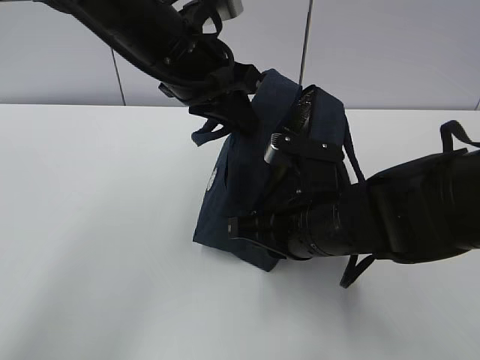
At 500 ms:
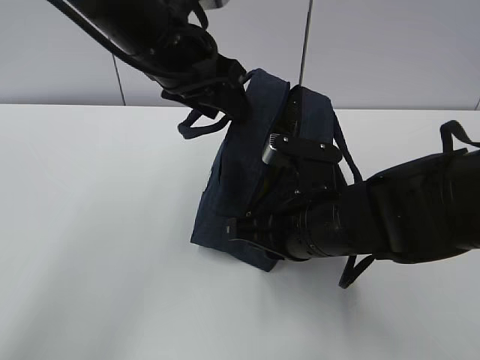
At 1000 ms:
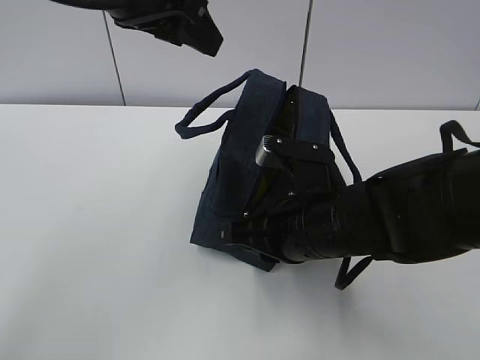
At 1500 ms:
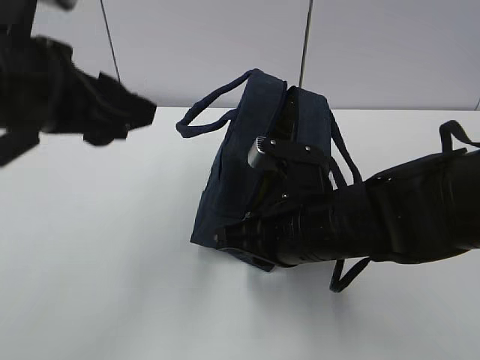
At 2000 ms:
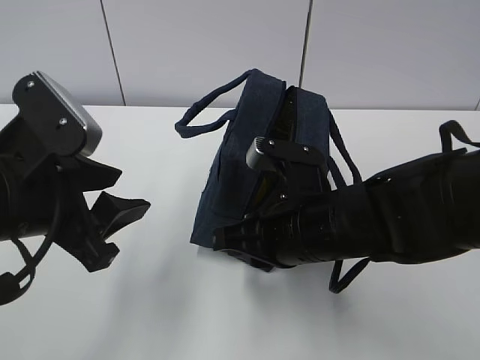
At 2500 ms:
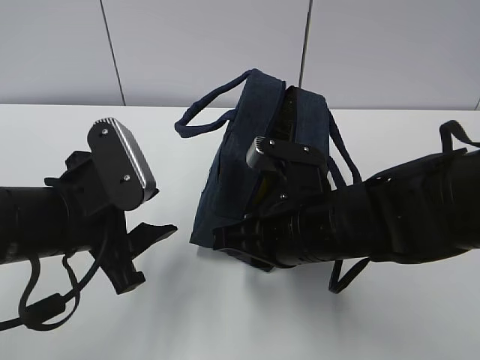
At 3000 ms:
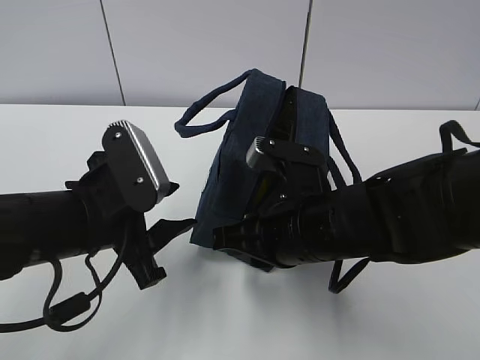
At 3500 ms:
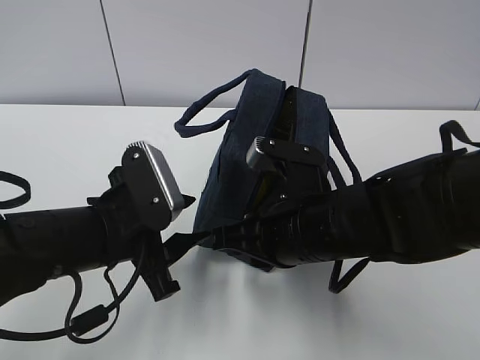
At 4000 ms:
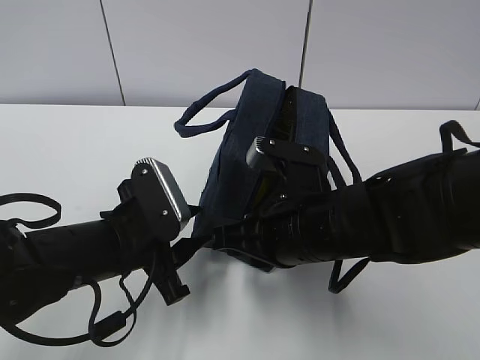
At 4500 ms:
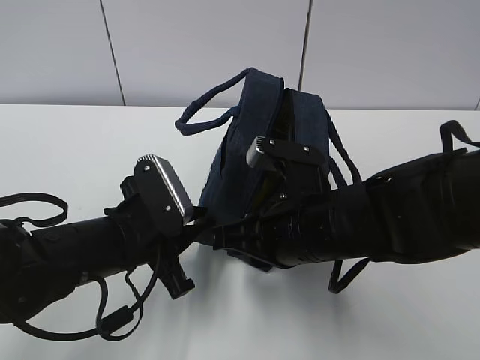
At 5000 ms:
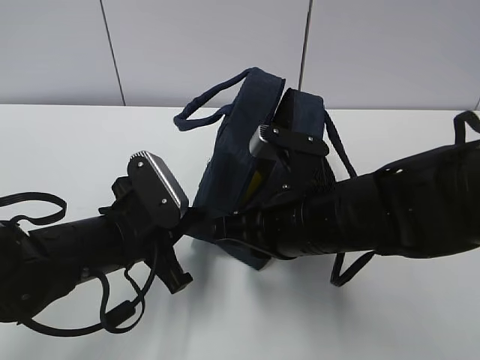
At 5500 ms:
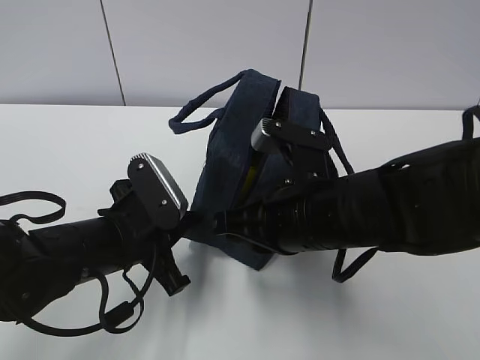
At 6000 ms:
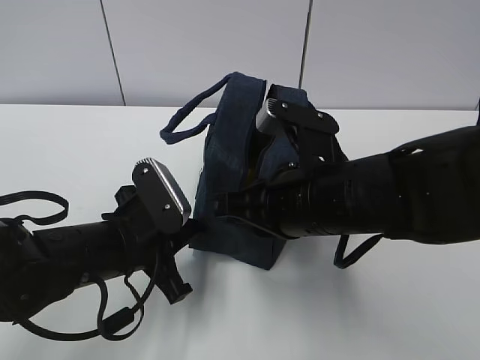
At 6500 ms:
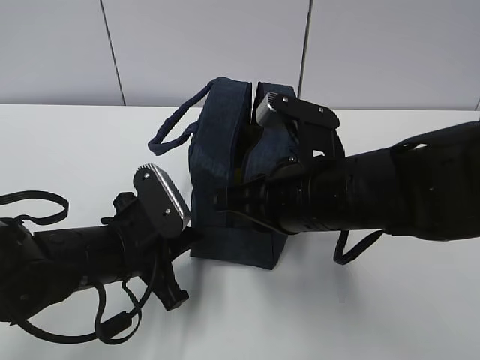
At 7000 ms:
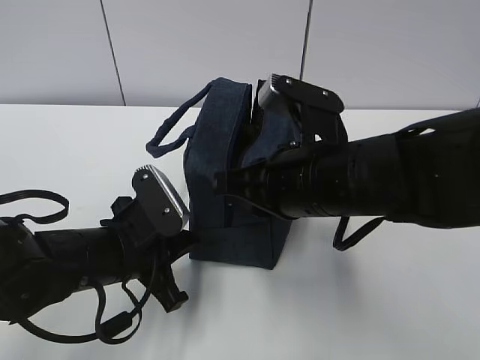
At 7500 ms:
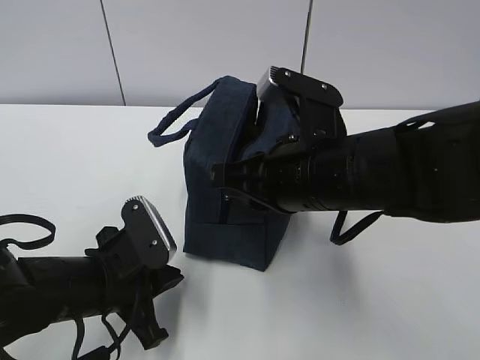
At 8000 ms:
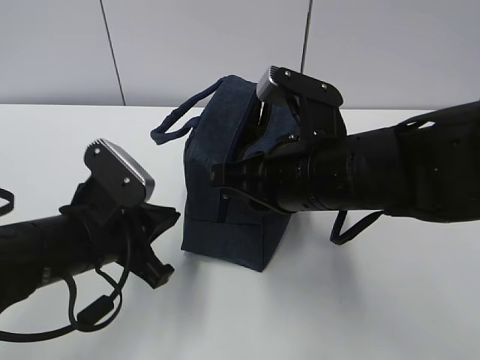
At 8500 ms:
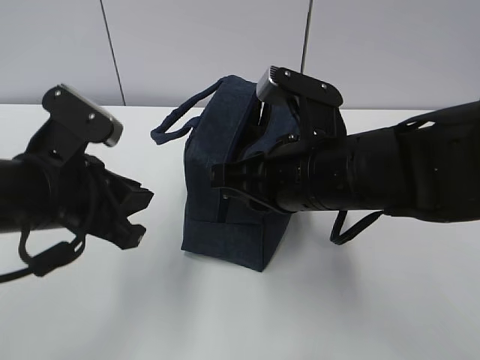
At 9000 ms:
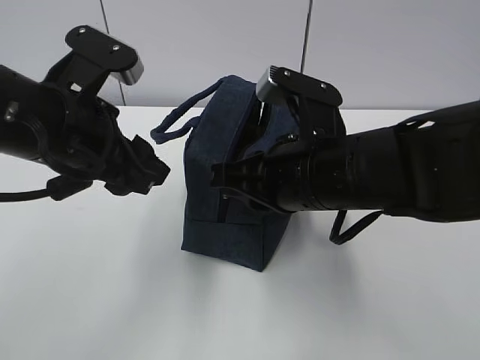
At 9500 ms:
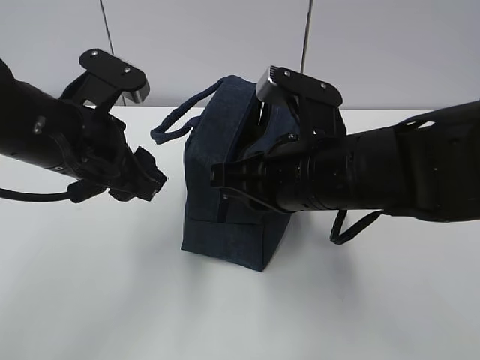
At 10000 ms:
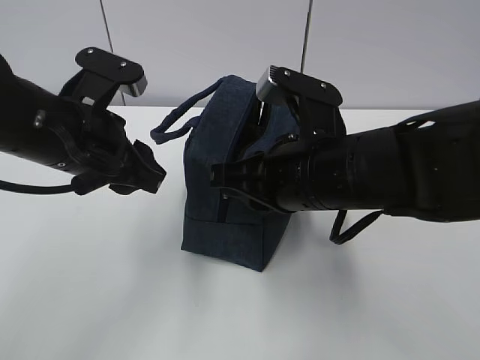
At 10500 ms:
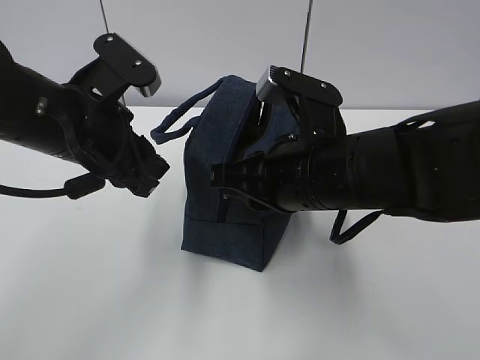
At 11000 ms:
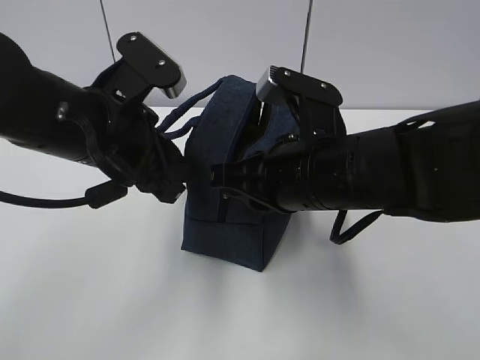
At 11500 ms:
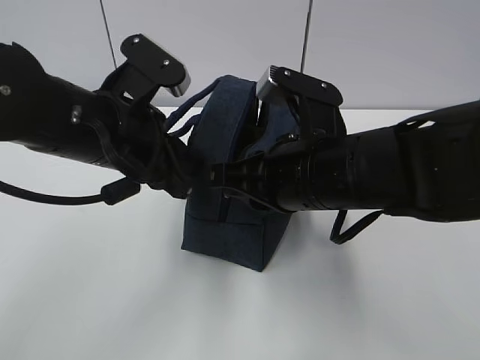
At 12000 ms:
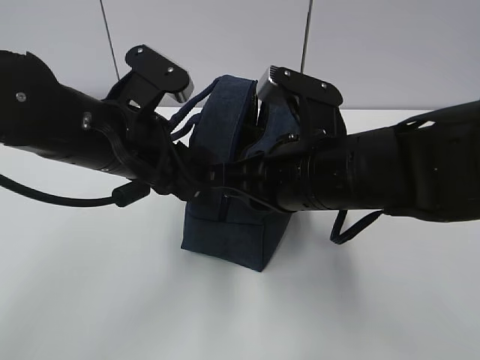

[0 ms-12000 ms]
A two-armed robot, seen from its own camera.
Step, 0 ms to 8000 ms: Grab the lunch bag with your left hand.
0 ms to 2000 ms: The left gripper heads backward and to the left, covering about 20 cm, and opens.
2000 ms to 4000 ms: The left gripper is displaced downward by roughly 10 cm.
4000 ms to 6000 ms: The left gripper closes.
8000 ms to 10000 ms: The left gripper travels upward by roughly 10 cm, and opens.
10000 ms to 12000 ms: There are only small adjustments of the grippers.

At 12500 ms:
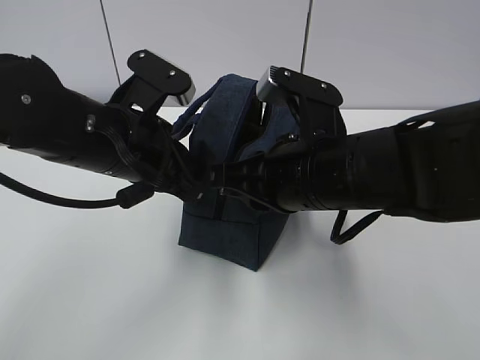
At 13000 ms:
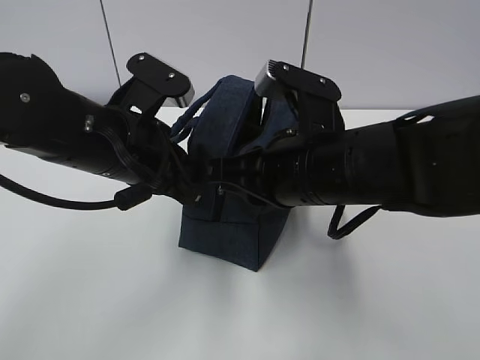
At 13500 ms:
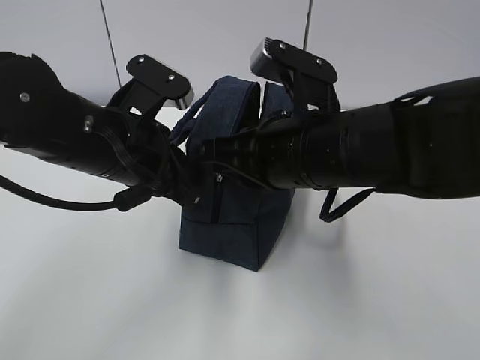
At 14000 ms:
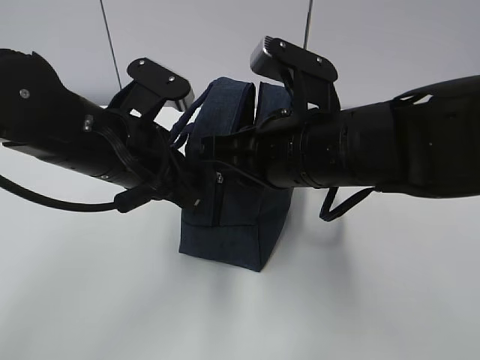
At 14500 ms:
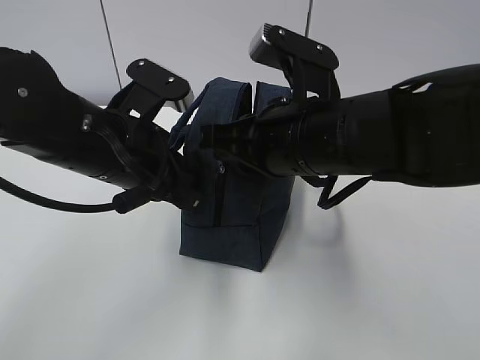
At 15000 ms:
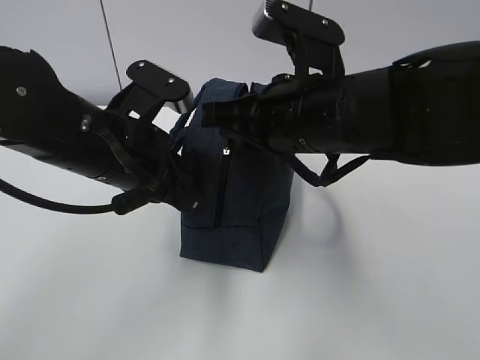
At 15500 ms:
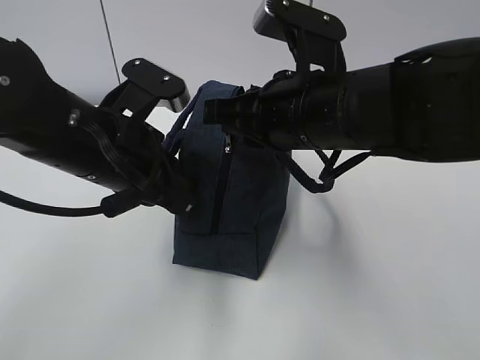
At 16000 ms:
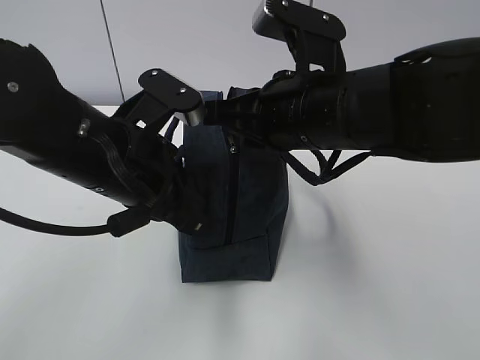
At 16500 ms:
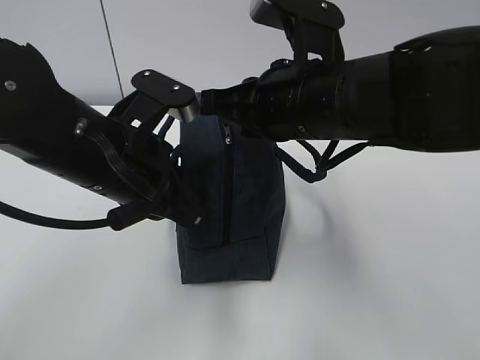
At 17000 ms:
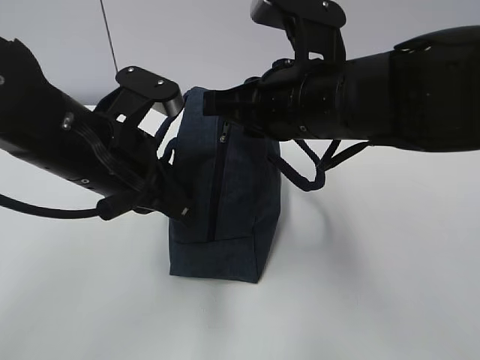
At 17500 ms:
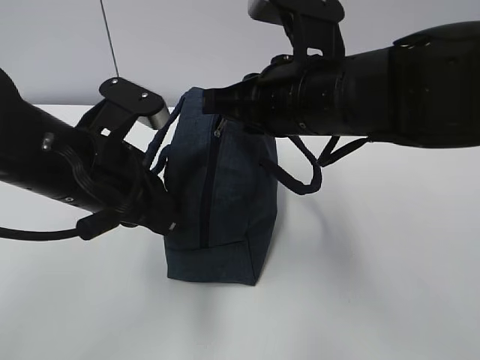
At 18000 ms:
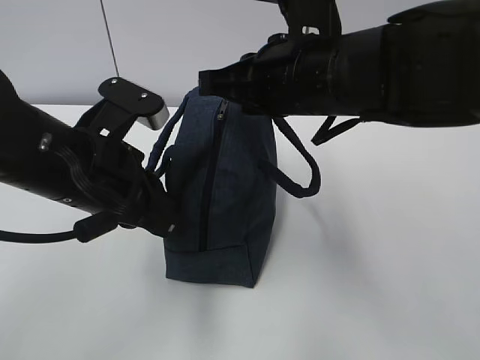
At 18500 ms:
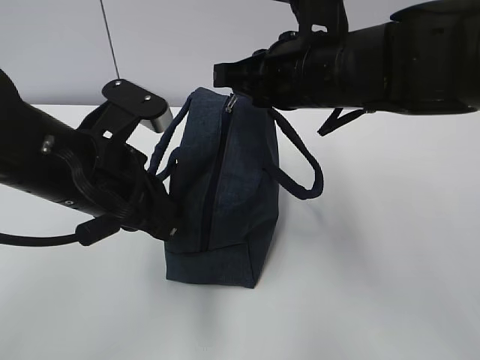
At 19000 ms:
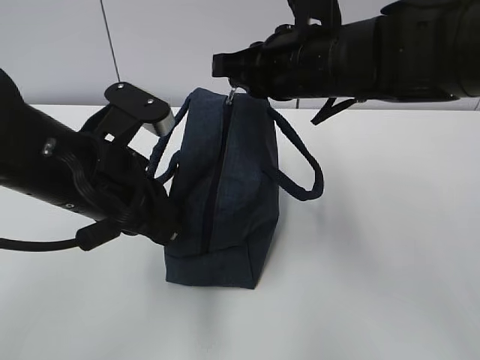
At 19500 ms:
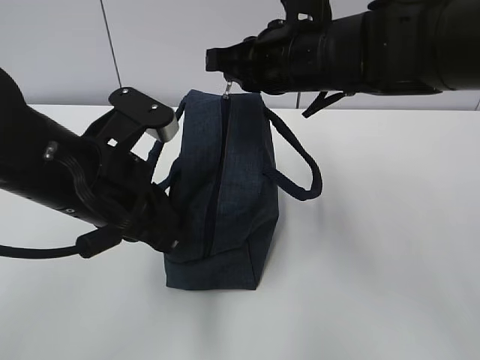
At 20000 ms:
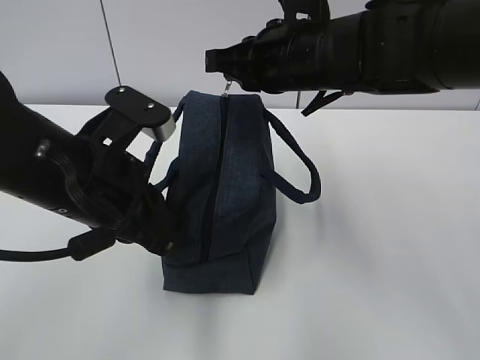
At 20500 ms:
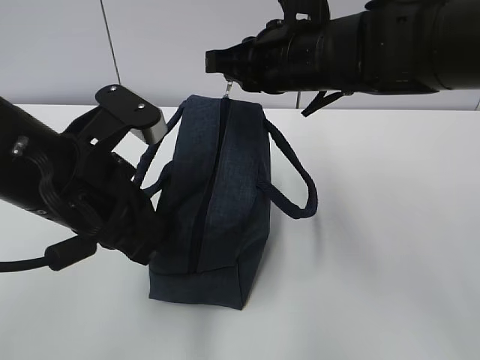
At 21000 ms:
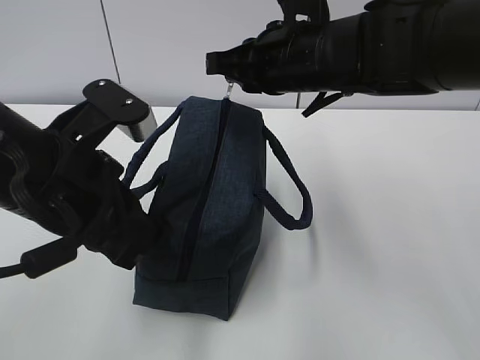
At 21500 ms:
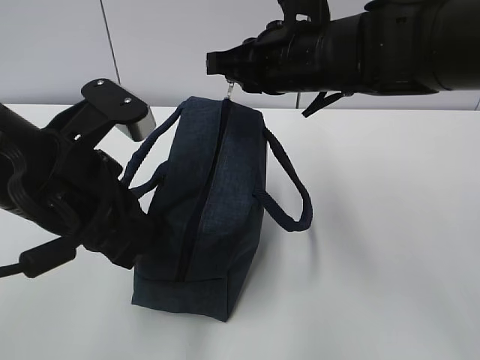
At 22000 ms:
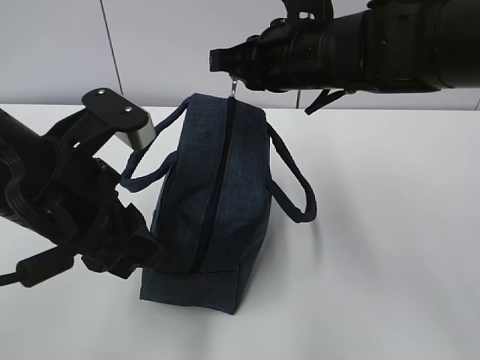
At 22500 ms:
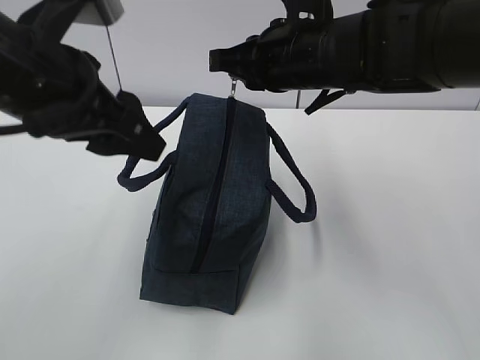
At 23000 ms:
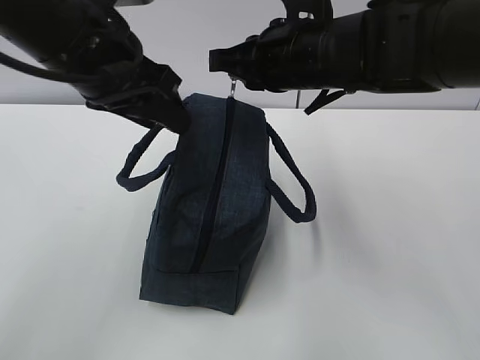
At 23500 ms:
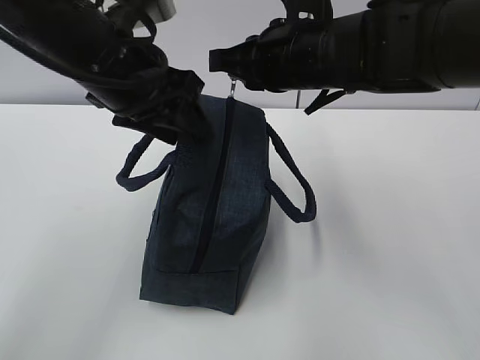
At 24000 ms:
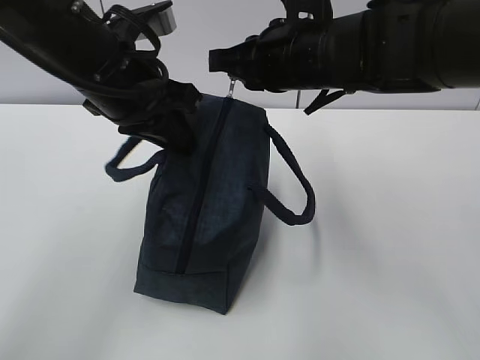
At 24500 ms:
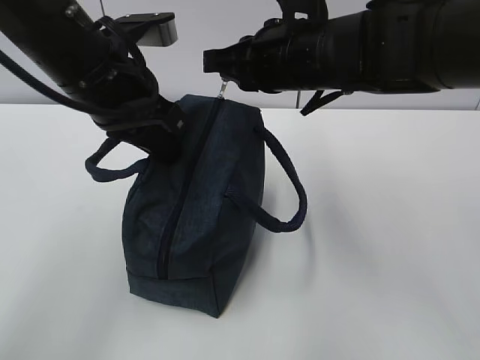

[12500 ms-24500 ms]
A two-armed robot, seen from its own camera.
Step, 14500 ms to 16500 ms: Grab the lunch bag with your left hand.
12500 ms to 14500 ms: The grippers move only a little.
18500 ms to 20500 ms: The grippers stay close to where they were, moving slightly.
20500 ms to 22500 ms: The left gripper goes some 5 cm upward, and opens up.
22500 ms to 24500 ms: The left gripper heads forward, covering some 5 cm, and closes up.

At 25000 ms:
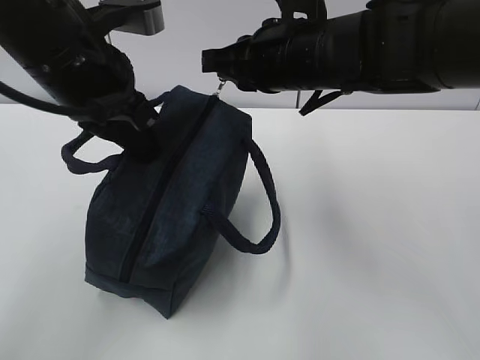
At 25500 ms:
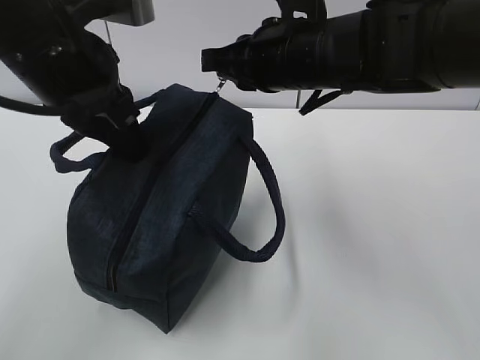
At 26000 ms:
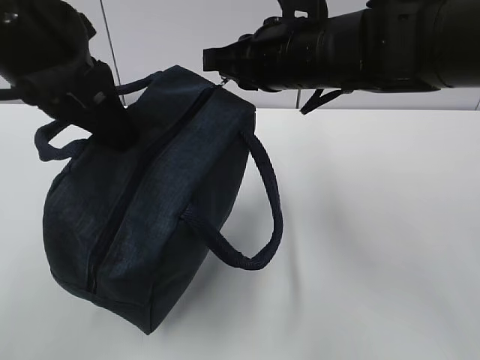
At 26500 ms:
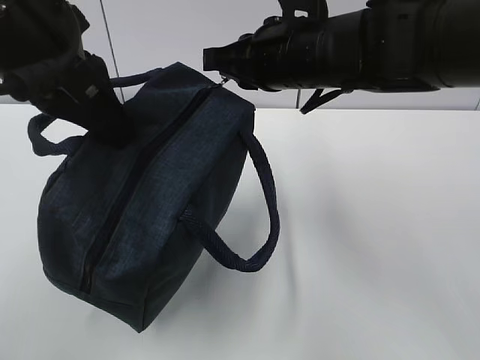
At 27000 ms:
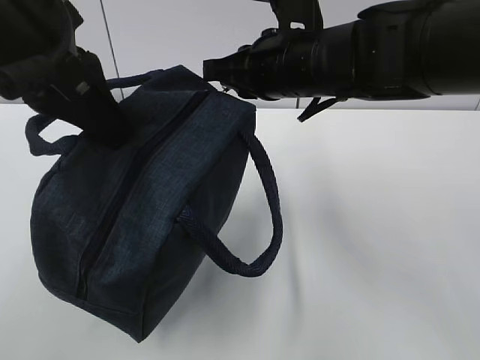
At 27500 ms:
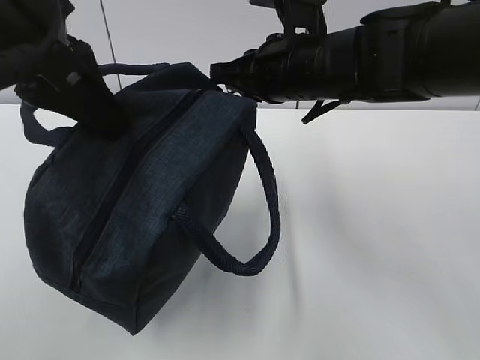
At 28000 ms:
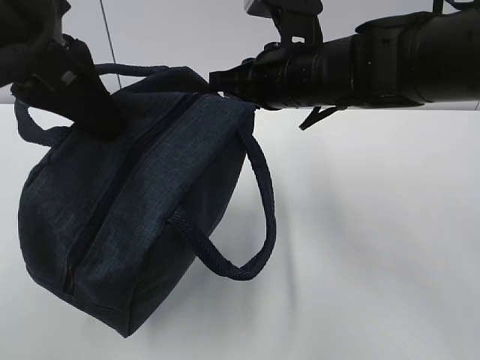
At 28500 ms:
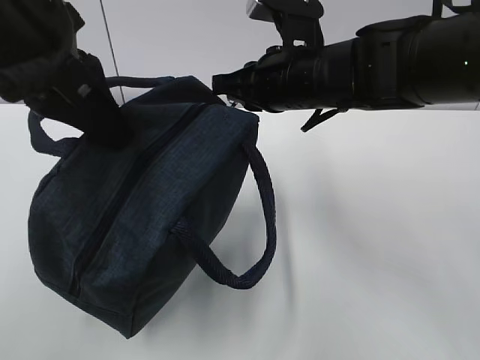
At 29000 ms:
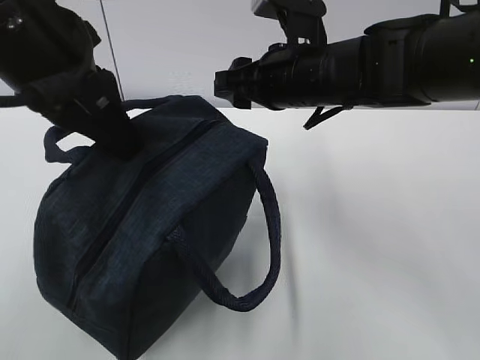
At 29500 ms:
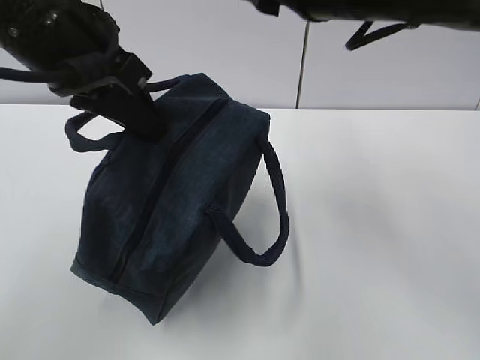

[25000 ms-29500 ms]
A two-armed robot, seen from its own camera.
25000 ms to 27000 ms: The left gripper travels upward by roughly 5 cm.
27000 ms to 29500 ms: The right gripper goes about 10 cm upward, and opens.
